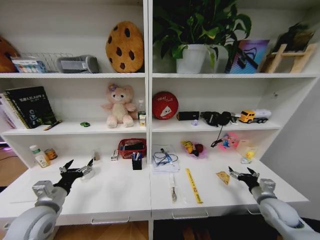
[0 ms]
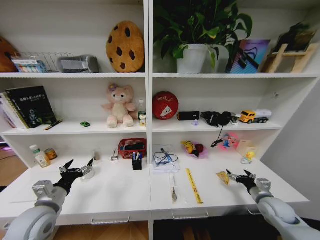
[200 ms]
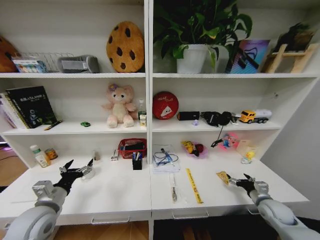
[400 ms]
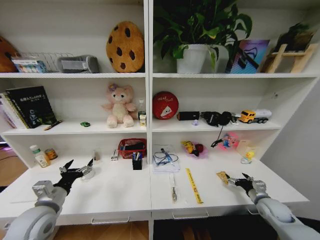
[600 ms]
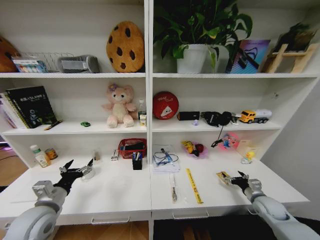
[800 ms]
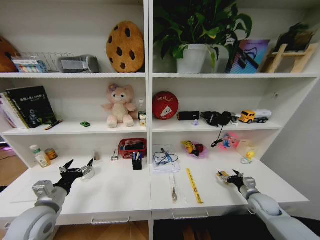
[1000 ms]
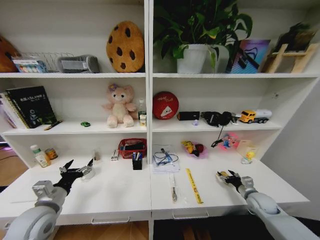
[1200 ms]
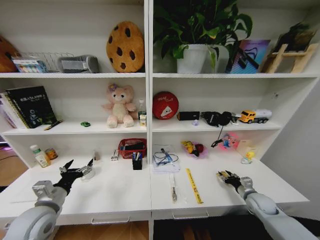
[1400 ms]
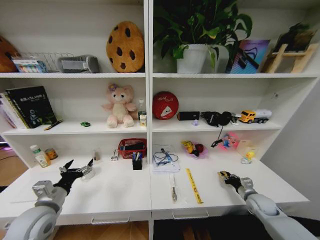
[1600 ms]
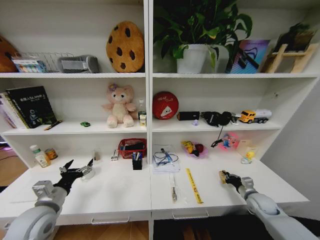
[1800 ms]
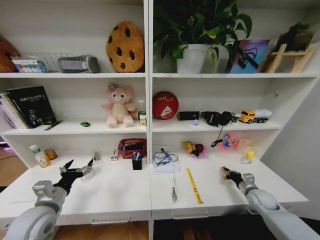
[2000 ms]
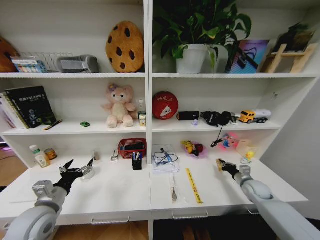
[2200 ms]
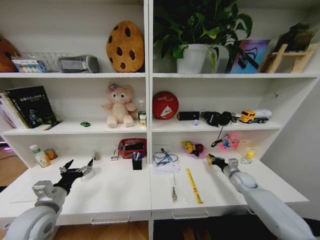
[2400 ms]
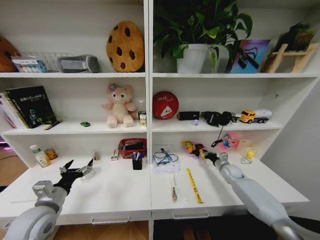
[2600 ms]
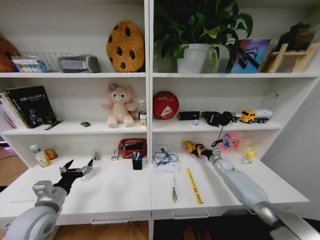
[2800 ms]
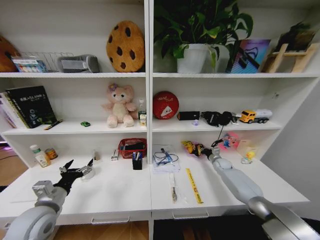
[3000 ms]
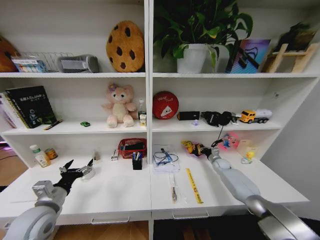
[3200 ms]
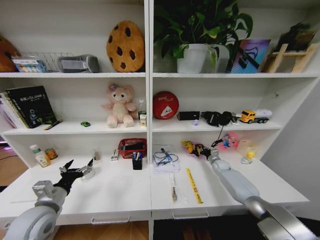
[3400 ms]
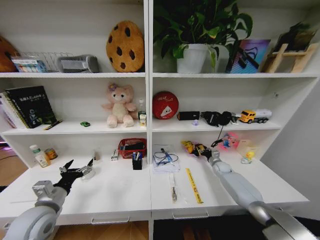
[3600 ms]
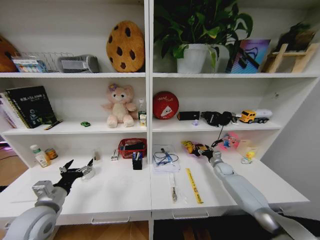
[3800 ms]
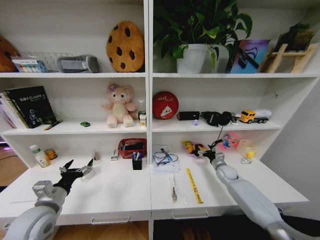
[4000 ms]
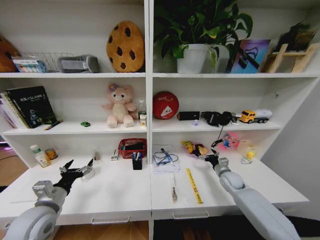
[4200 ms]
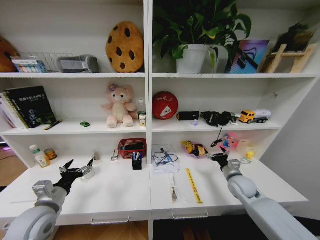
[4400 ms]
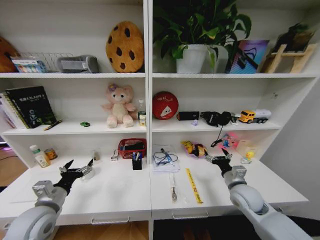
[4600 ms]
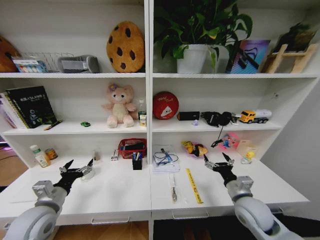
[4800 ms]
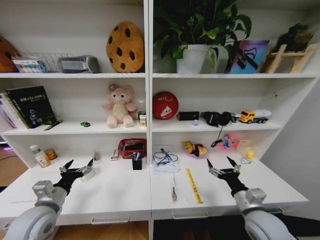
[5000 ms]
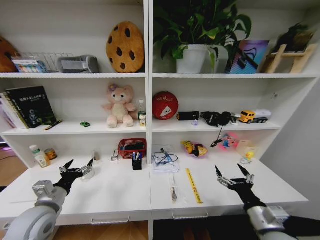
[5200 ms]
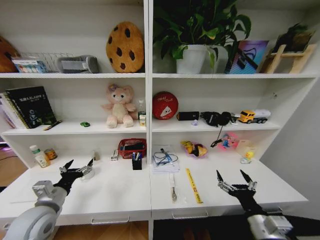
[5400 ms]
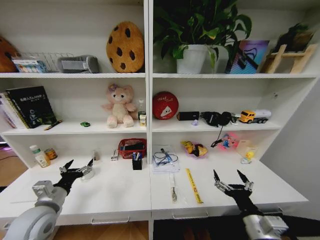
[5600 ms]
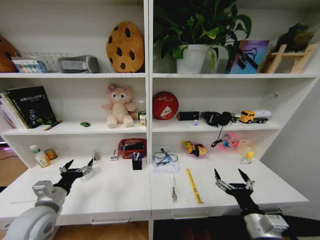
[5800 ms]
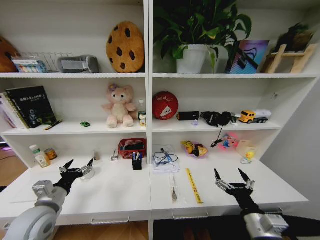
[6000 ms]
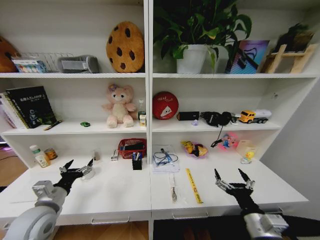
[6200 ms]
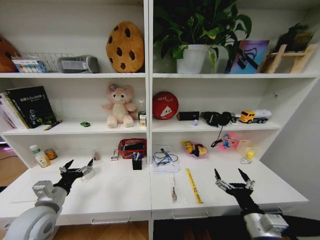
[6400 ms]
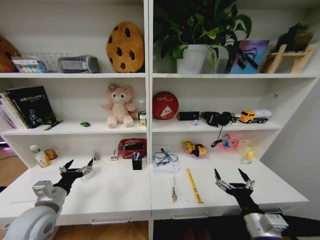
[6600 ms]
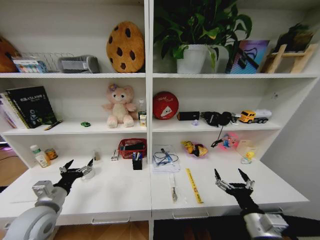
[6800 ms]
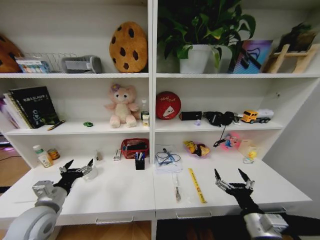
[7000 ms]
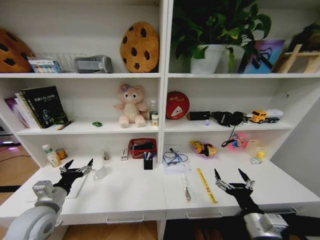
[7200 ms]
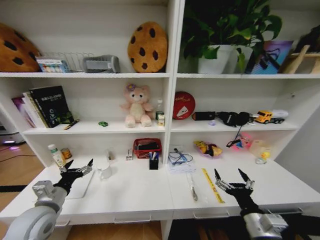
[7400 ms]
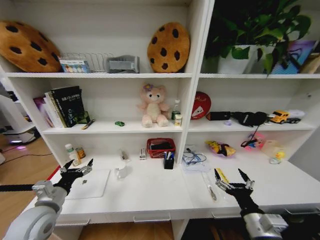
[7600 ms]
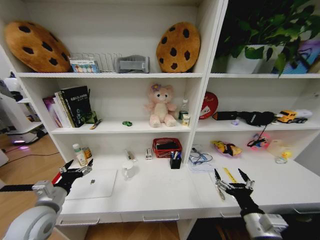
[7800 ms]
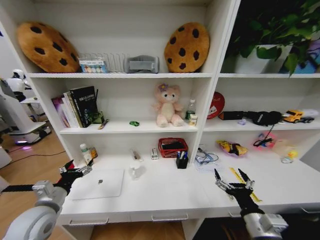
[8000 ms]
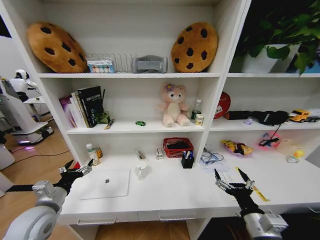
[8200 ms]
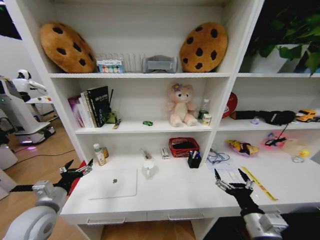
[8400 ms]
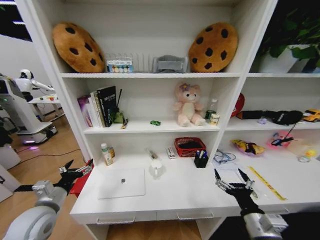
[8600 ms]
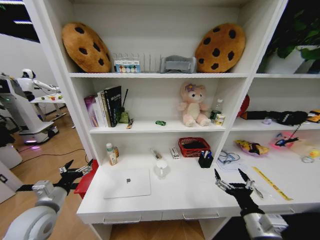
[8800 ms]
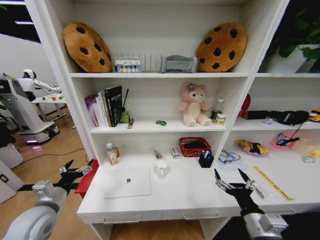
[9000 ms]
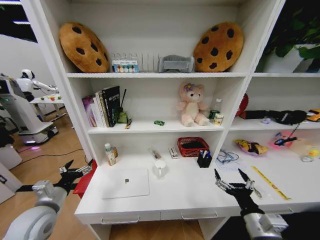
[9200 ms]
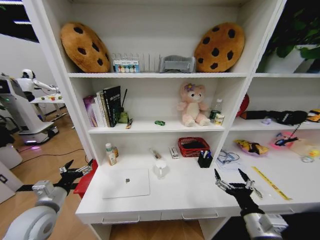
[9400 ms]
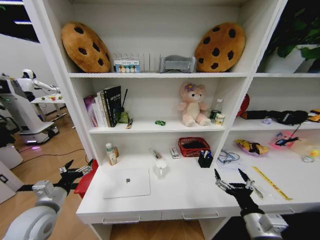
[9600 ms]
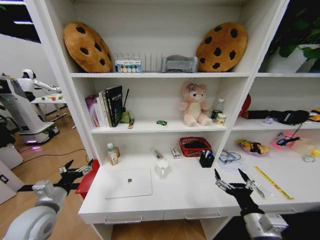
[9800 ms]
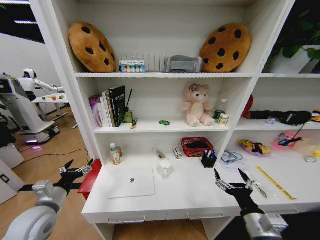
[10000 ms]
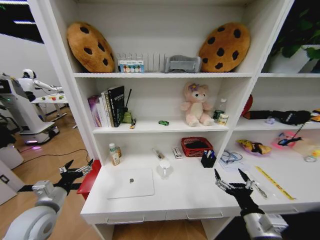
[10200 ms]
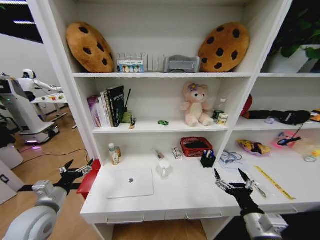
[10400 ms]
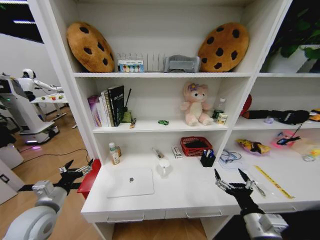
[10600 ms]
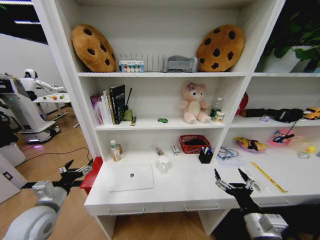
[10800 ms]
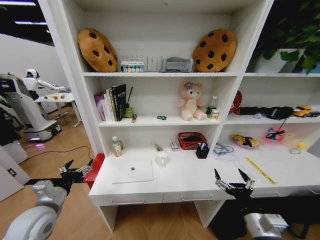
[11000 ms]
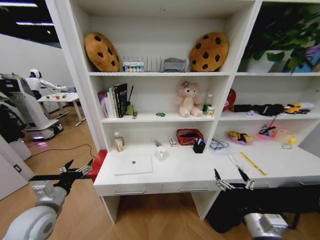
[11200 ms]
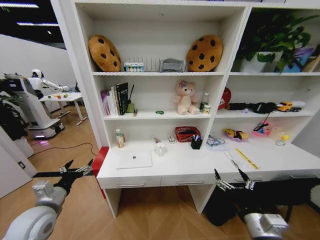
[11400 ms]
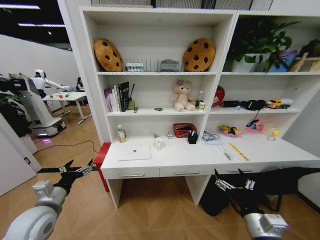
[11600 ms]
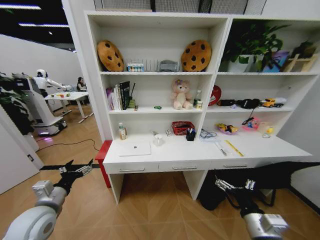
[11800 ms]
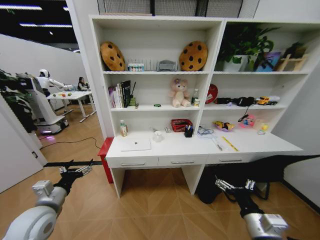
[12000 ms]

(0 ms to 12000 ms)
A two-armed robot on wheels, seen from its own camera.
Task of the whole recording: Organize the objects on the table.
0 ms - 1600 ms: The right gripper is displaced downward and forward by some 10 cm, and closes up.
1600 ms - 3000 ms: The right gripper heads forward, covering about 20 cm.
3000 ms - 4400 ms: The right gripper heads backward and upward, covering some 20 cm, and opens its fingers.
4400 ms - 6000 ms: The right gripper travels backward by roughly 20 cm.
9000 ms - 10400 ms: The two grippers keep their place.

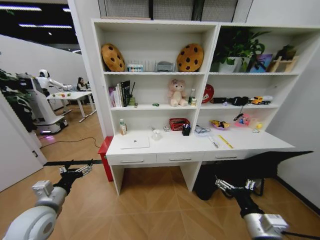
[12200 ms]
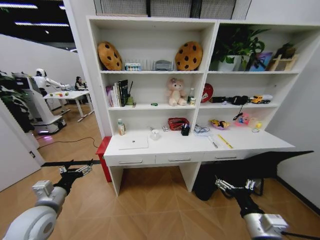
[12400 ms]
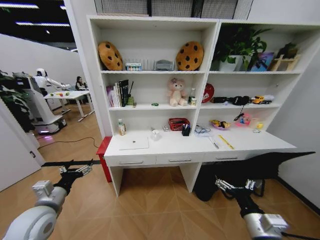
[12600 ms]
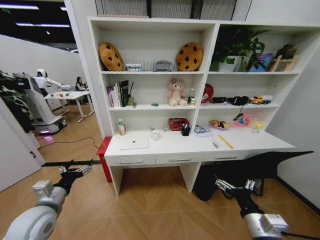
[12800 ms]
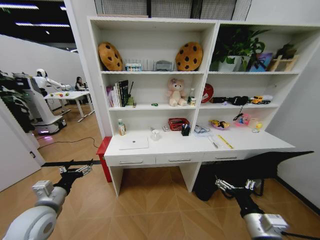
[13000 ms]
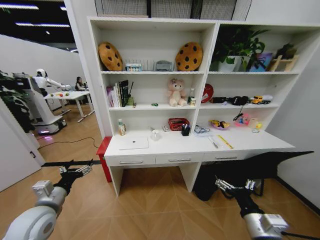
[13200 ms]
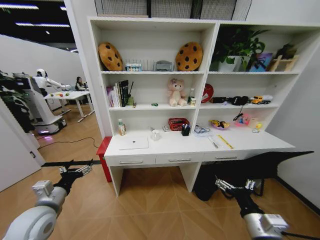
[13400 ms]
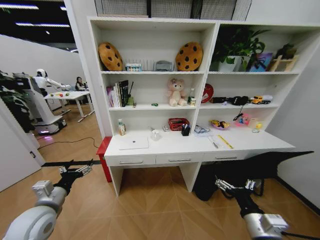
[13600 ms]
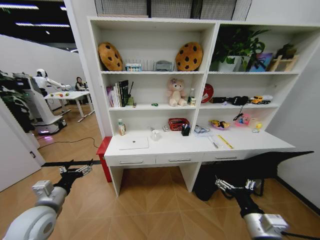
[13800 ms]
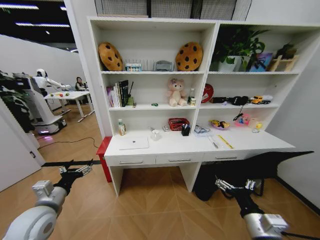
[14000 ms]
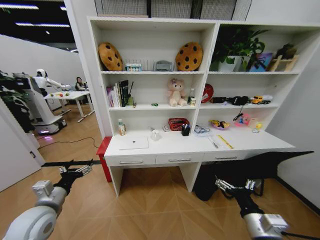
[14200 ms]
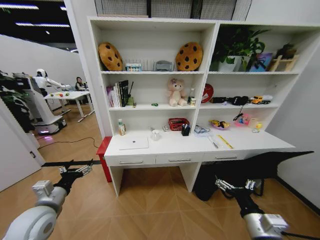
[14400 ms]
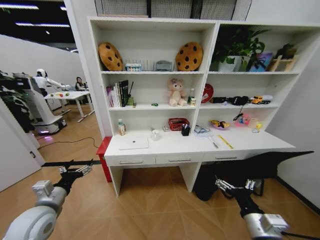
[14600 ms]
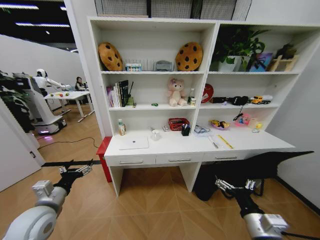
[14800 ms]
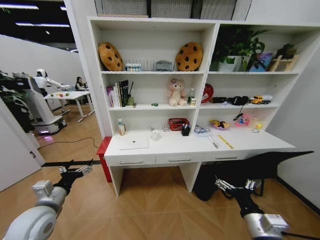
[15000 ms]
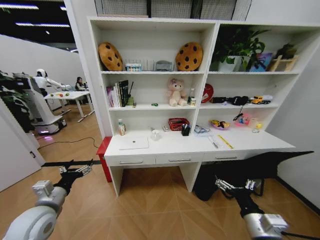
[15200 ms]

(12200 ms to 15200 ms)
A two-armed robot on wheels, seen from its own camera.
Task of the whole recording: Organize the objects on the table.
12200 ms - 15200 ms: Both grippers stay put.

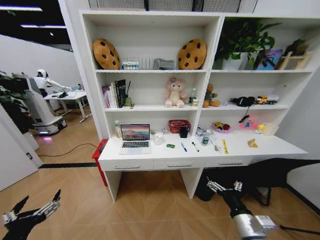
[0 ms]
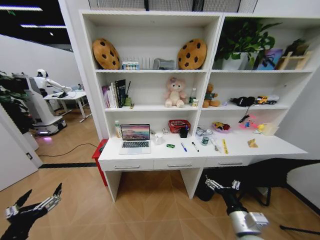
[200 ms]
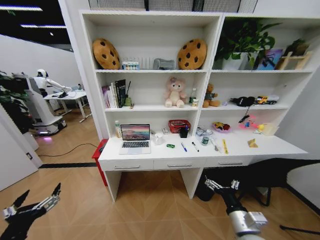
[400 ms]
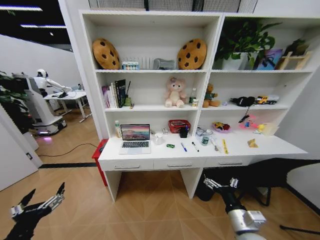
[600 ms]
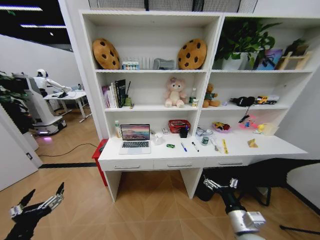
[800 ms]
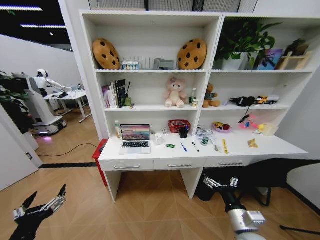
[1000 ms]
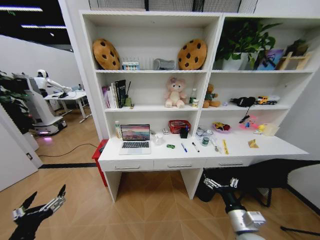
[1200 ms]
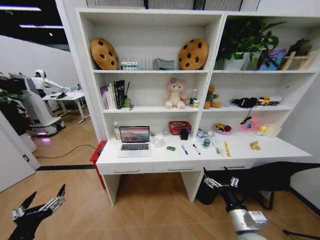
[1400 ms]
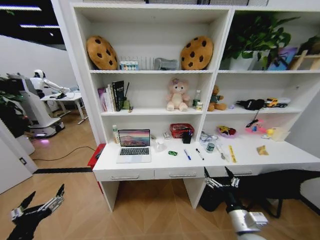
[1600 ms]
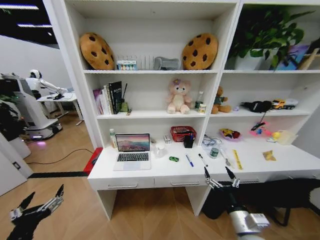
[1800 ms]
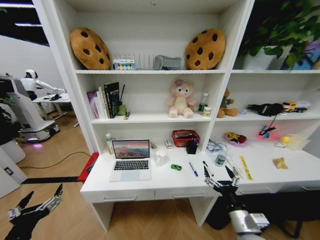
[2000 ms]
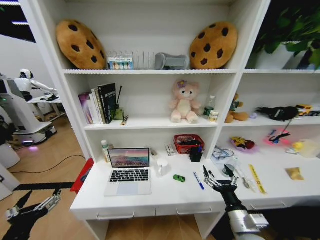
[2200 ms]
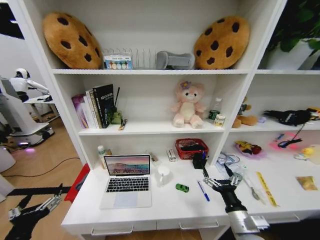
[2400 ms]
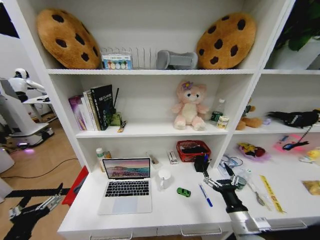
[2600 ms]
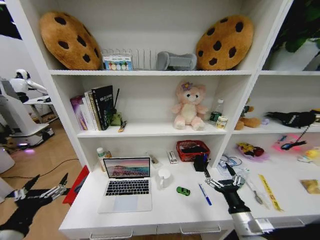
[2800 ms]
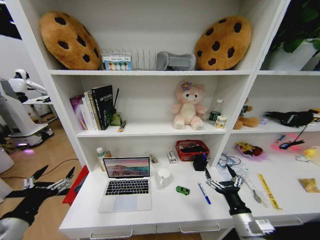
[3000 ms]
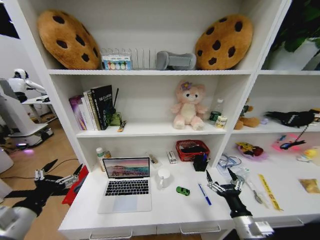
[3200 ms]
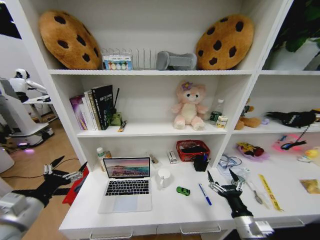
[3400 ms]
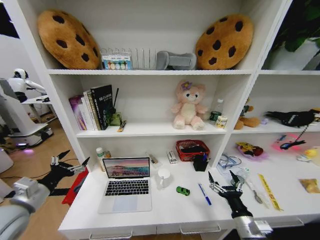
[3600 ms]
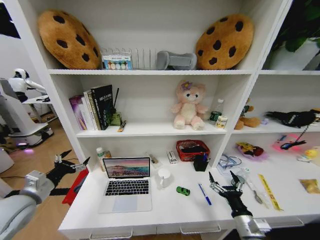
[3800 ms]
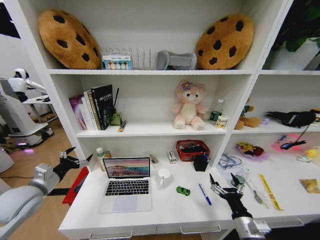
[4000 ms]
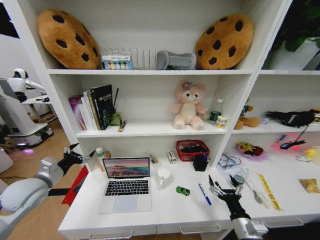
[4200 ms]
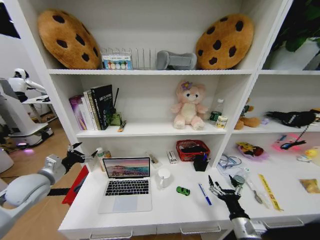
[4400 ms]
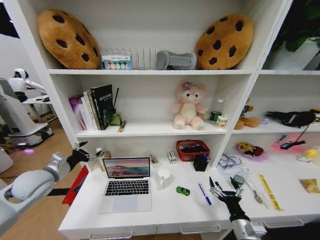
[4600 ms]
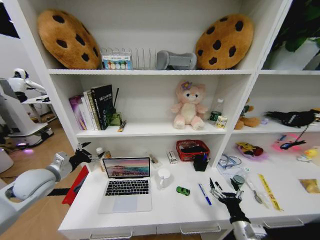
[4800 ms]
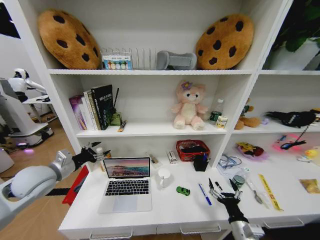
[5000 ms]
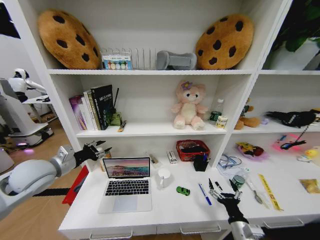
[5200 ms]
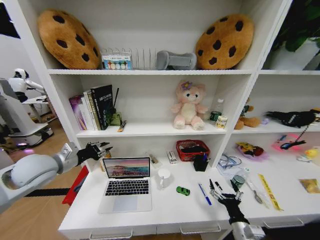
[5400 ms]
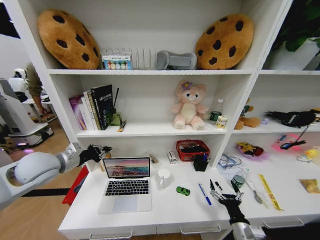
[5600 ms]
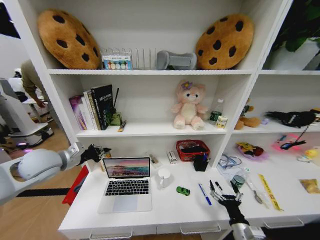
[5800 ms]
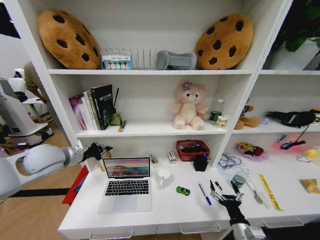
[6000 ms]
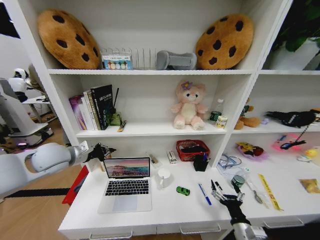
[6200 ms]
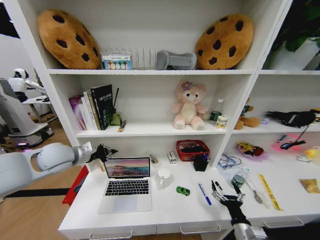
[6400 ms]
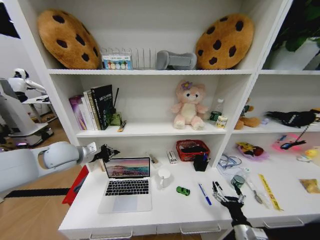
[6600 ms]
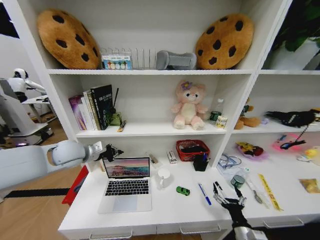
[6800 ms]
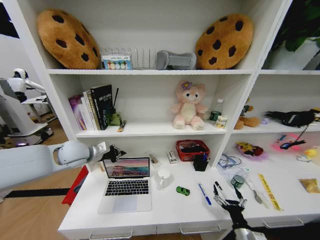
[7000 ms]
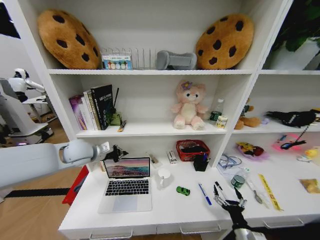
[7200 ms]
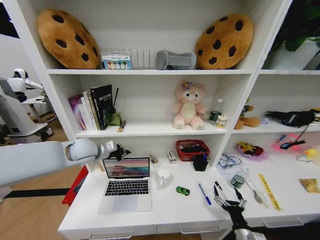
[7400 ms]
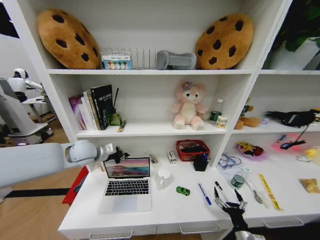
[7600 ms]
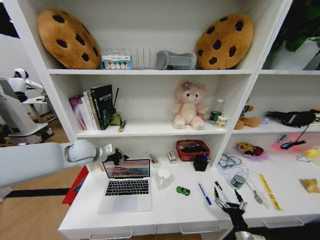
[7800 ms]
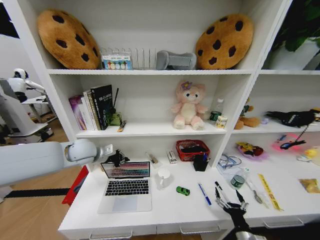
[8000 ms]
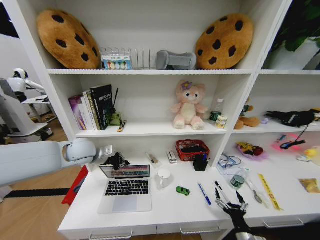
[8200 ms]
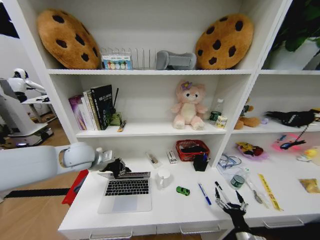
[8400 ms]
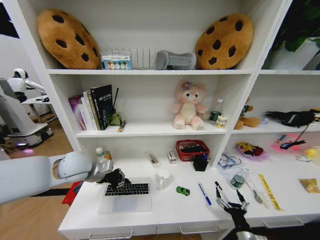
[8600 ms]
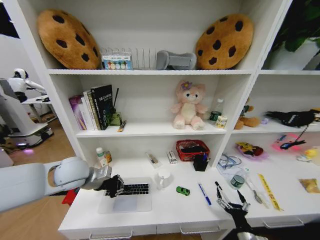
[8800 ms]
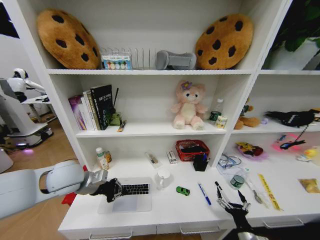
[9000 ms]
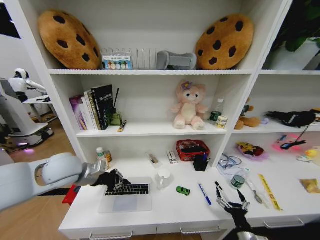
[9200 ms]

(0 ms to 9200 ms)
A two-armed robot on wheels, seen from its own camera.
Task of the whole recording: Organize the objects on the table.
1600 ms - 3000 ms: The left gripper changes place by approximately 5 cm.
3000 ms - 4600 ms: The left gripper goes approximately 20 cm forward; the right gripper moves downward, some 5 cm.
4600 ms - 6200 ms: The left gripper is displaced upward and to the right by roughly 10 cm, and closes its fingers.
6200 ms - 7600 ms: The left gripper is displaced to the right and forward by approximately 10 cm.
7600 ms - 9200 ms: The left gripper moves backward, roughly 10 cm.
